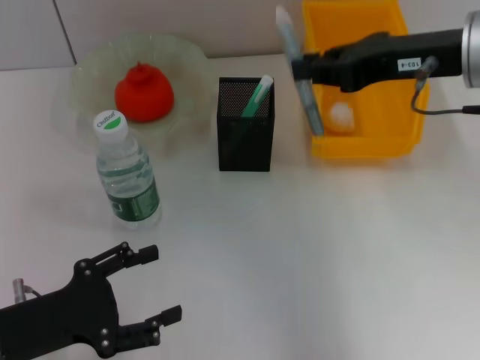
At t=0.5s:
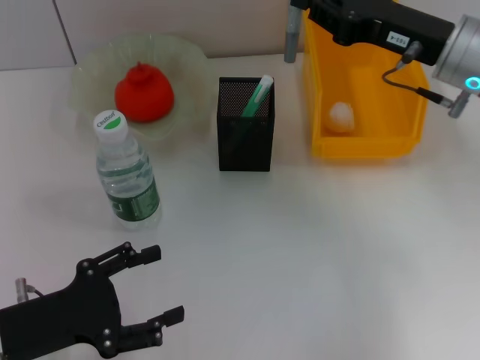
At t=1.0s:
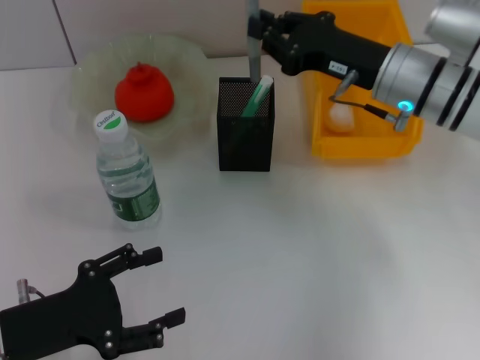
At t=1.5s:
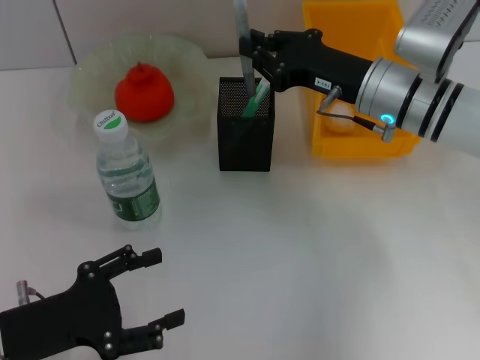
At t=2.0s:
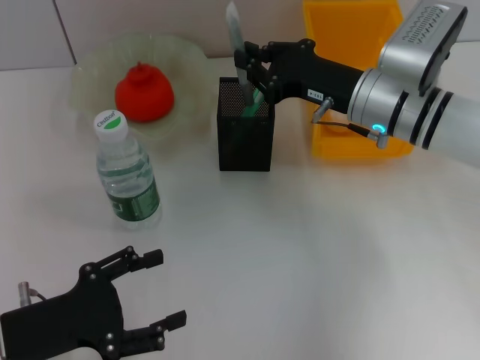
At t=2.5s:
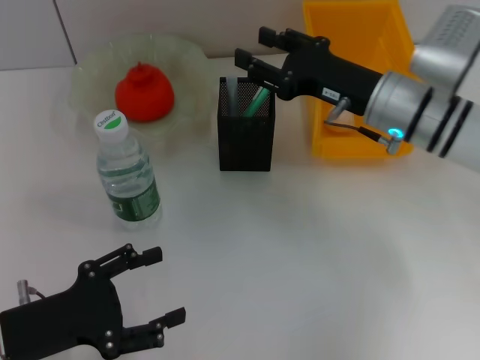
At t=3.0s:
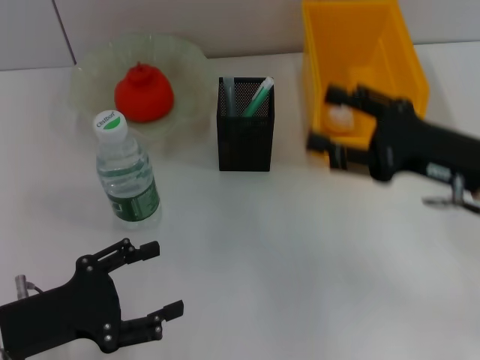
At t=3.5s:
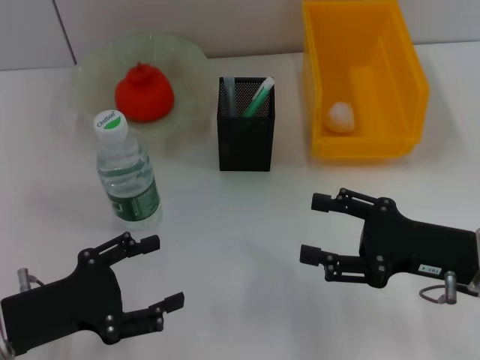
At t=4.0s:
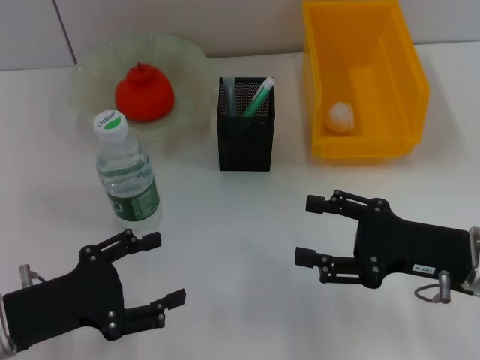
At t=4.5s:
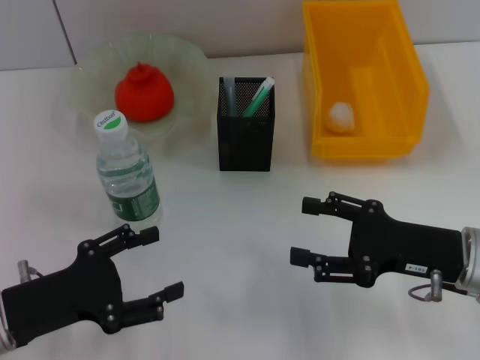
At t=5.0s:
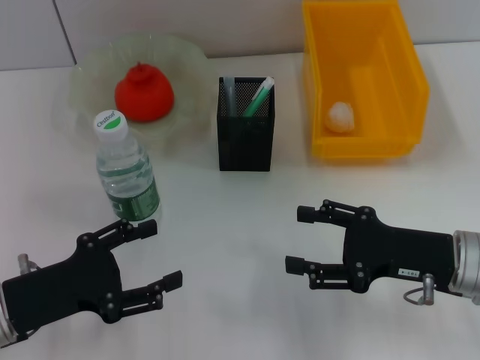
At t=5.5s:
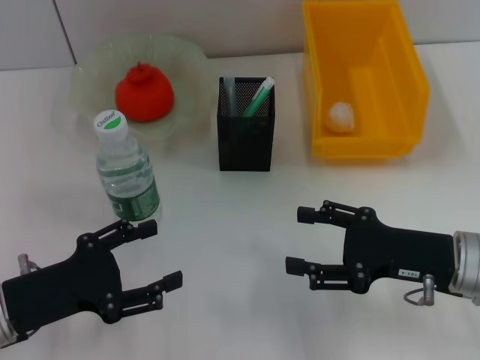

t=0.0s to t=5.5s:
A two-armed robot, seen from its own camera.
Step, t=0.0s to t=2.5s: Place the gray glue into the pen holder with the right hand.
t=0.0s to t=2.0s: The right gripper shifts approximately 15 cm downward and forward.
t=2.0s to t=3.5s: The right gripper is displaced backward and to the right by some 15 cm, and opens up.
t=3.5s to t=5.5s: The grippers make only small movements.

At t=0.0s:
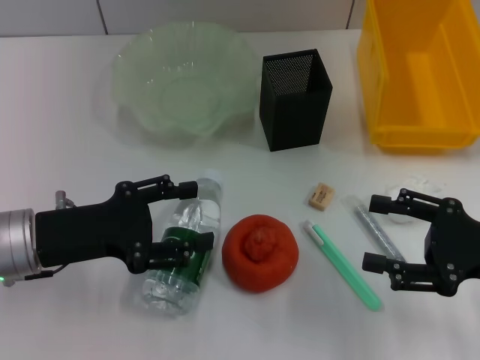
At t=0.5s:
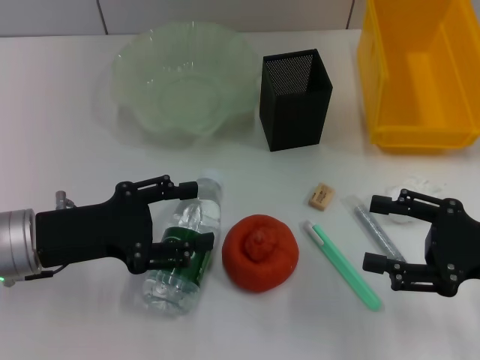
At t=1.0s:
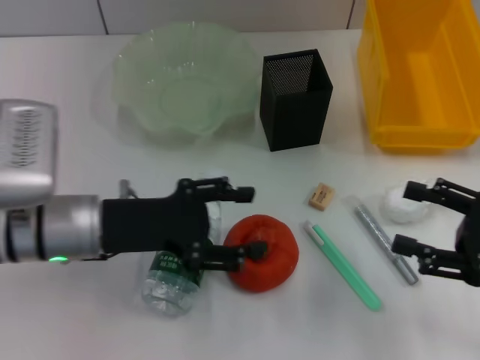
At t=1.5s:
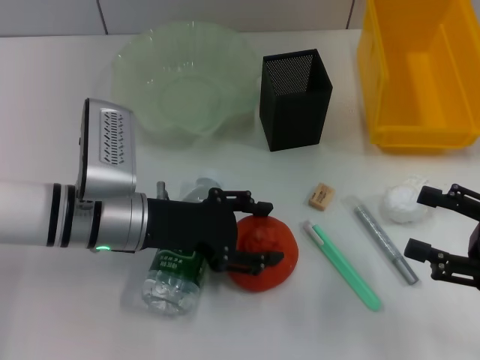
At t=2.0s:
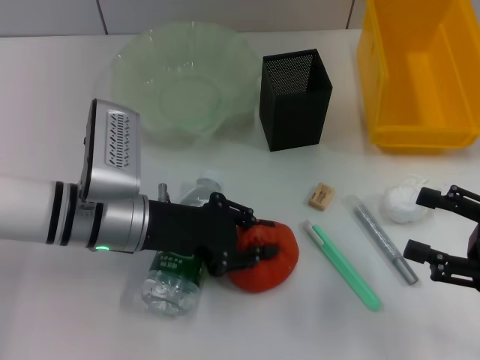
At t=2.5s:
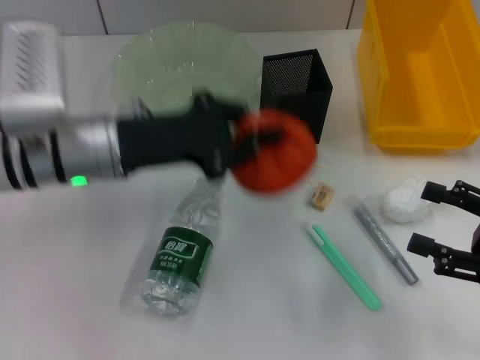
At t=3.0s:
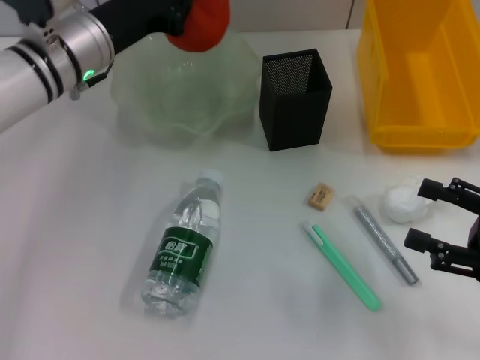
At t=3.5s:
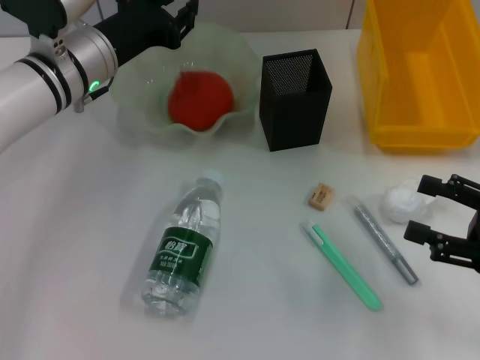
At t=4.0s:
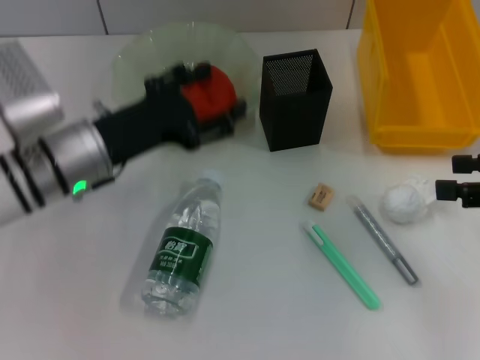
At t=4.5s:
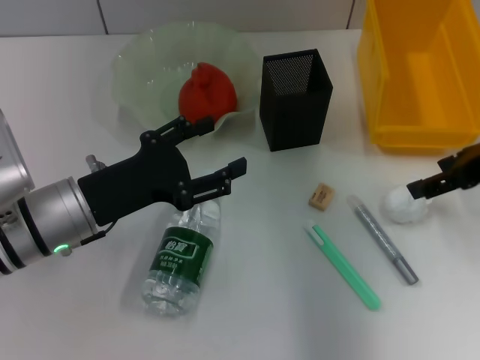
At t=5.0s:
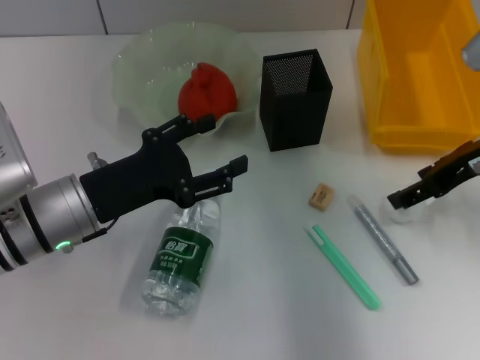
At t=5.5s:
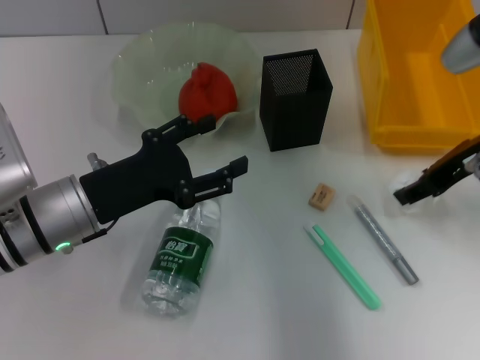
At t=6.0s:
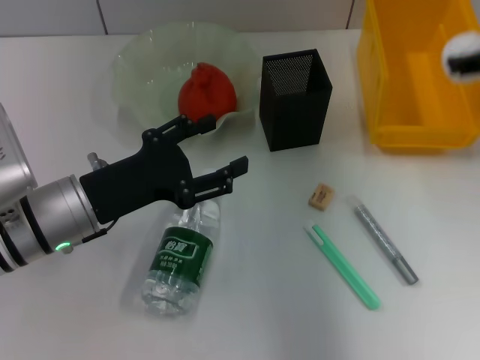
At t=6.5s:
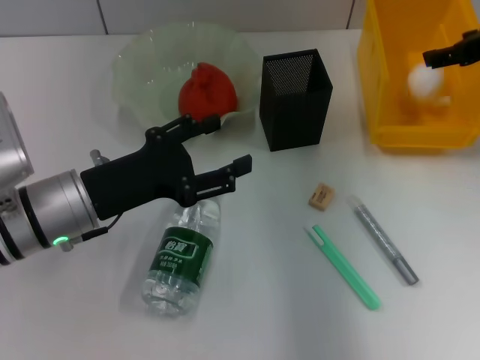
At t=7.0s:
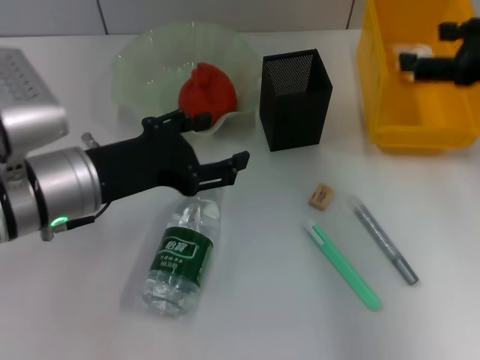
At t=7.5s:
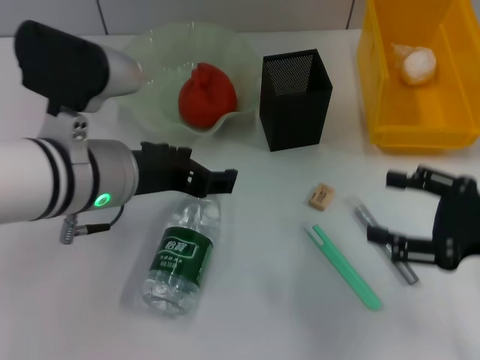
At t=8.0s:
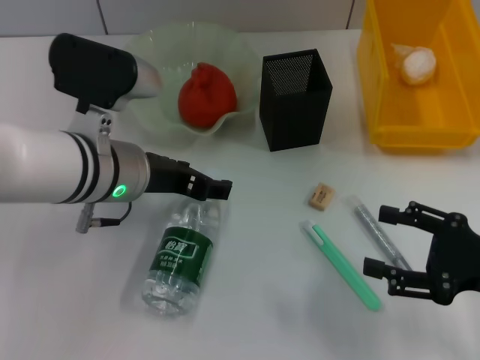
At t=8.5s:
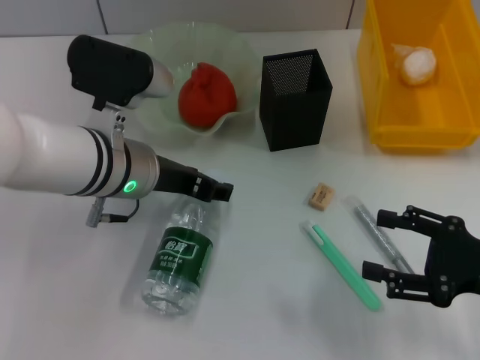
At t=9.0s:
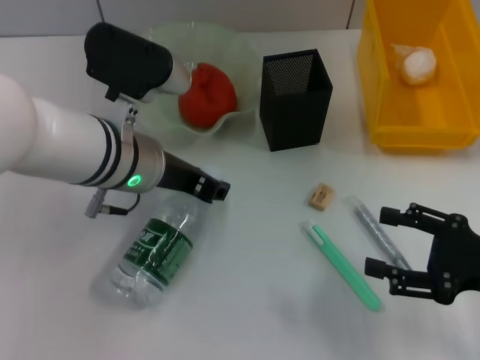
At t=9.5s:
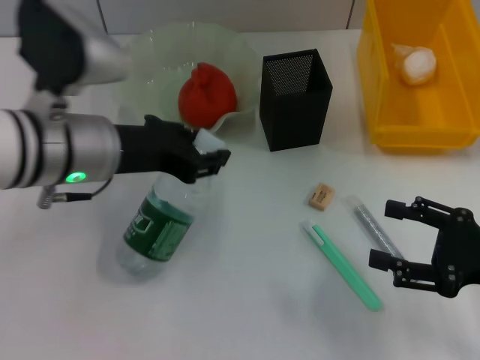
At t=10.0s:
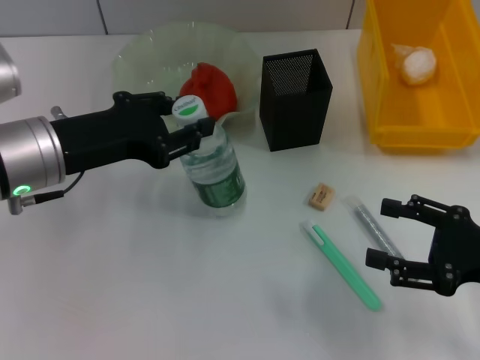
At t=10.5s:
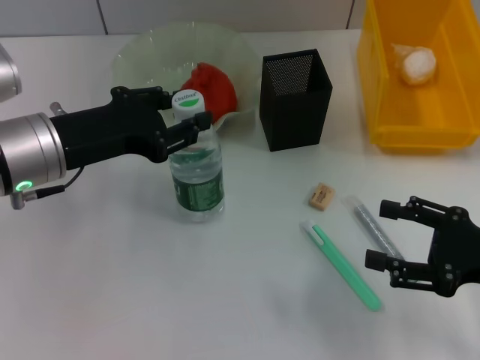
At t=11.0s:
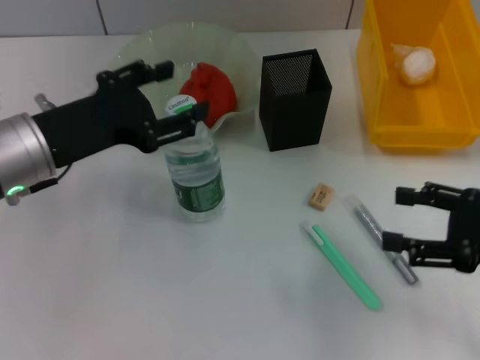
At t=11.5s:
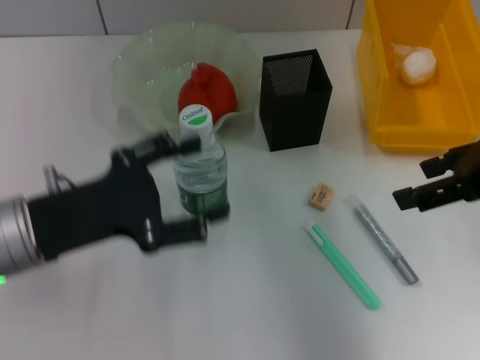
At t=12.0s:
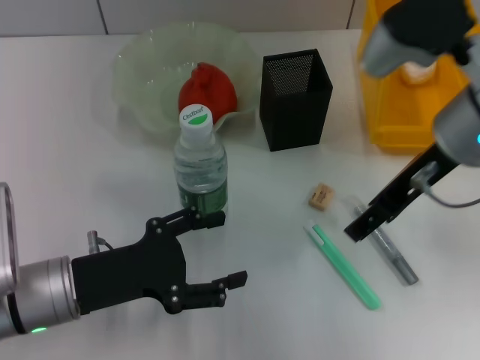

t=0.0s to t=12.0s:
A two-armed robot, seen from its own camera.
Step, t=0.0s to t=1.5s: Grab the orange with the left hand.
Step, t=2.5s to t=3.5s: Place the orange into the fruit bowl with the left hand.
Step, t=4.0s to t=5.0s: Grab the paper ball with the right hand.
Step, t=5.5s to t=6.5s: Place the paper ball into the trash can with the right hand.
Step, t=7.0s to t=9.0s: Grab the water bottle with the left hand.
Step, t=9.5s to t=11.0s: Place the water bottle on the table with the left hand.
t=0.0s to t=2.0s: The left gripper goes roughly 10 cm to the right, and closes its fingers.
t=2.0s to t=4.0s: The left gripper goes forward and returns, roughly 10 cm each way, and closes, then opens again; the right gripper travels upward and forward by about 10 cm.
t=4.0s to t=6.0s: The left gripper heads backward, covering about 5 cm, while the right gripper heads upward, forward and to the left, covering approximately 15 cm, and closes up.
t=6.0s to t=8.0s: The left gripper heads to the right and upward, covering approximately 10 cm. Meanwhile the right gripper shifts roughly 25 cm downward and backward, and opens its fingers.
t=8.0s to t=10.0s: The left gripper moves to the left, some 5 cm, and closes.
t=10.0s to t=12.0s: The left gripper goes roughly 10 cm downward and backward, and opens; the right gripper travels to the left, upward and forward by roughly 20 cm.

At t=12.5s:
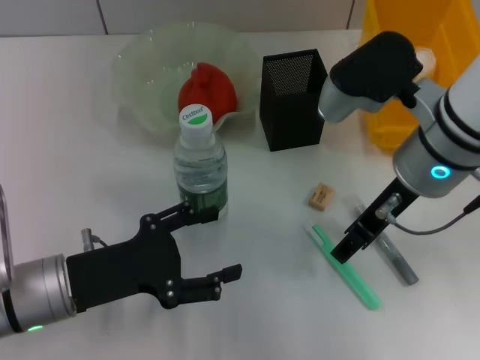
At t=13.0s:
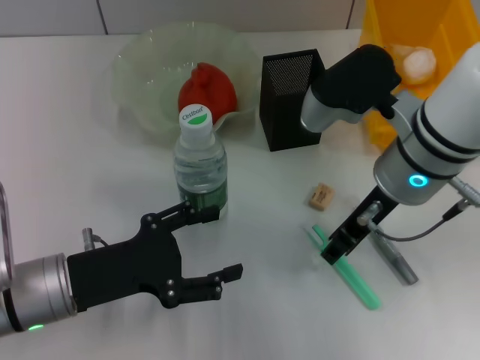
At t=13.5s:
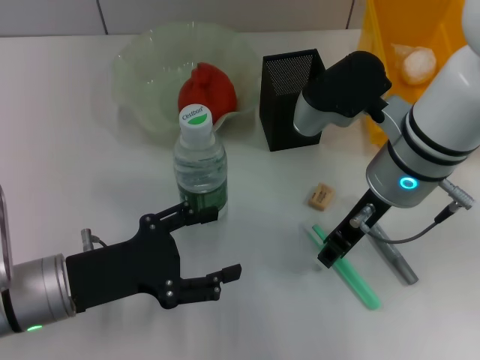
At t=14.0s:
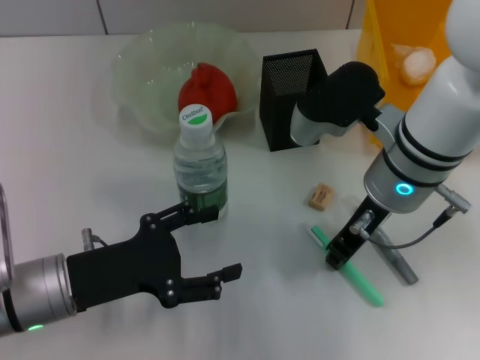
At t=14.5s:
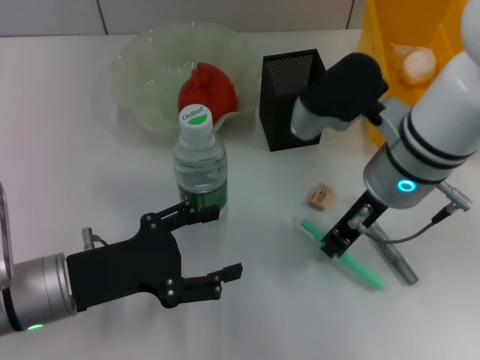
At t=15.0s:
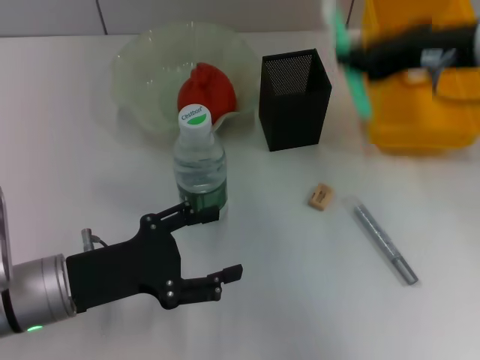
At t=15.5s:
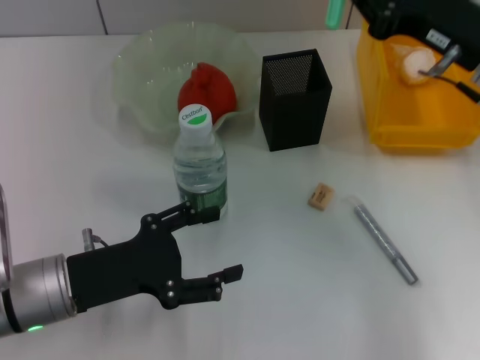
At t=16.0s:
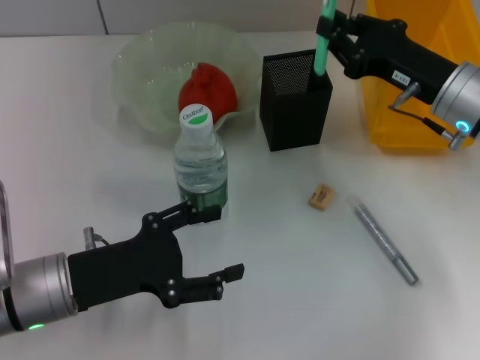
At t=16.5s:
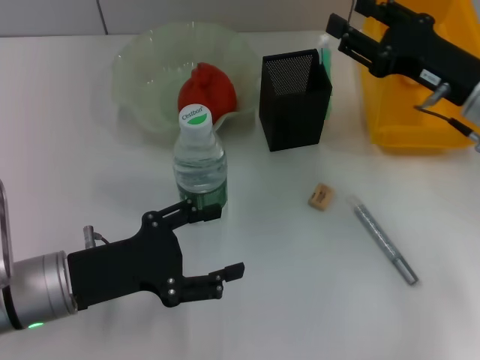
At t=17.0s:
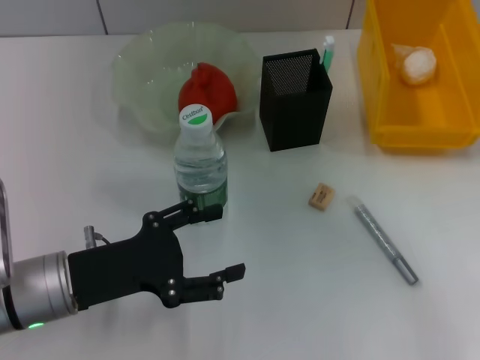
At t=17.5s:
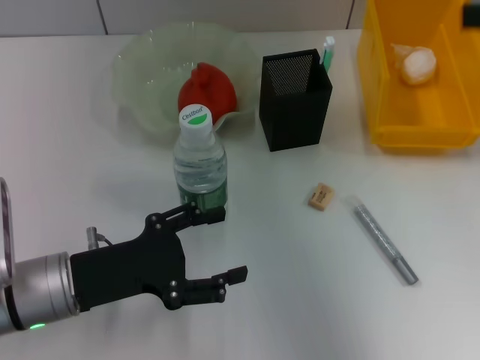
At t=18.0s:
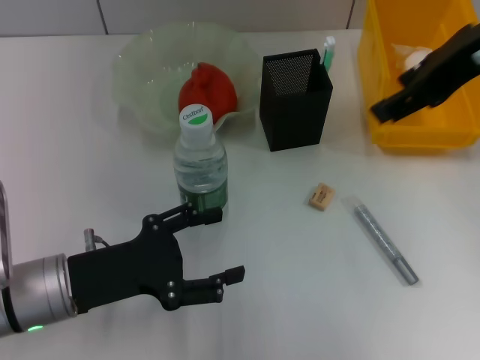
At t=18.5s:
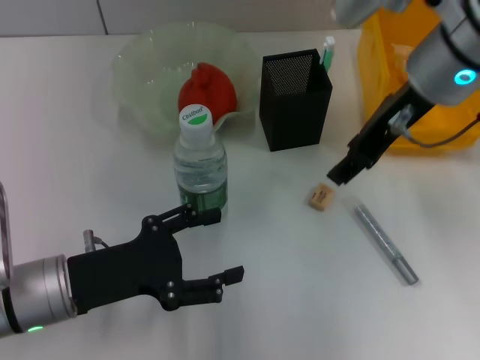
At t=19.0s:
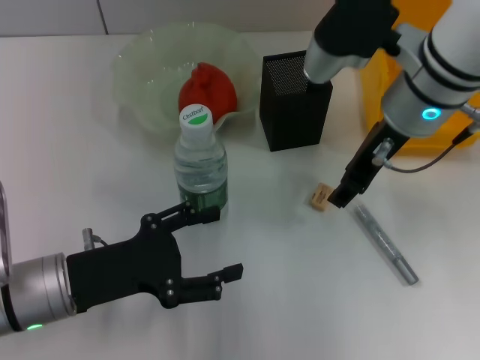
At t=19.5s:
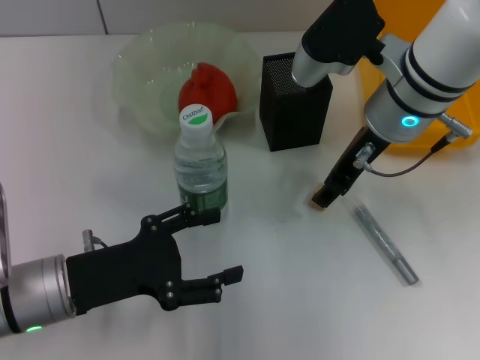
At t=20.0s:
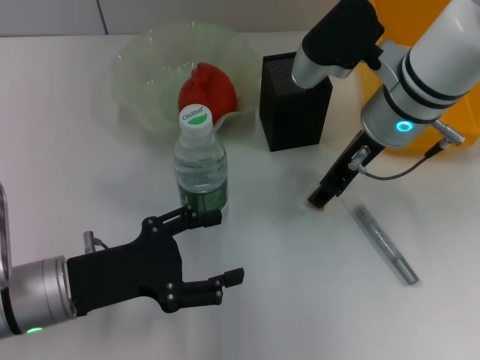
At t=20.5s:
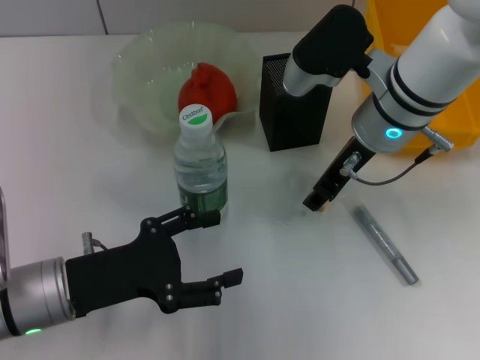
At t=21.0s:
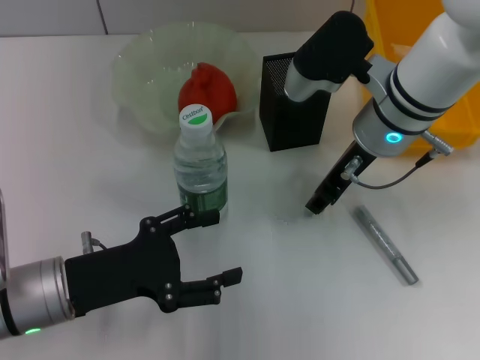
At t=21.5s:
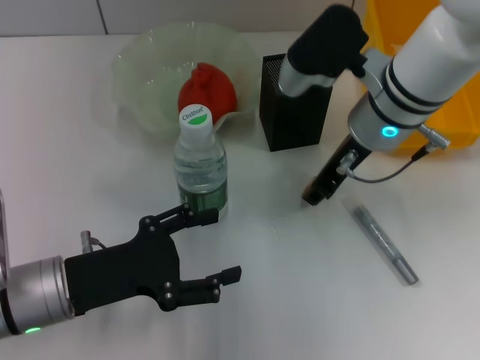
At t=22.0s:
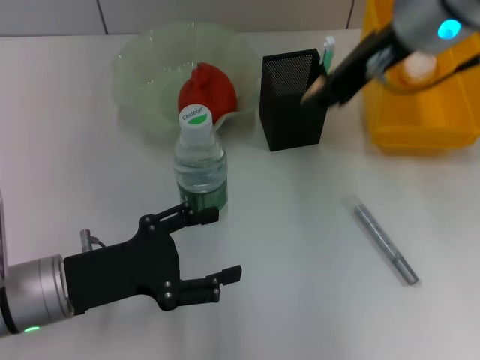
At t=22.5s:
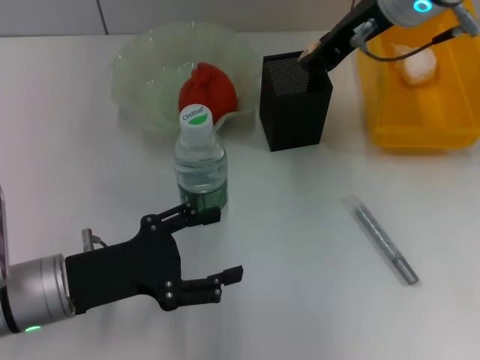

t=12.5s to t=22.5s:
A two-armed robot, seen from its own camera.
Step, t=12.5s to t=14.0s: Grab the blue utility knife with the right hand.
Step, t=14.5s to t=16.5s: Place the blue utility knife into the pen holder with the right hand.
Step, t=17.0s to t=21.0s: Grab the eraser with the right hand.
t=12.5s to t=14.5s: The right gripper closes its fingers.
t=14.5s to t=16.5s: The right gripper is displaced to the right by approximately 10 cm, and travels upward and back again, some 10 cm each way.
t=16.5s to t=18.5s: The right gripper moves upward and to the left, approximately 15 cm.
t=18.5s to t=20.5s: The right gripper heads downward, covering roughly 10 cm.
t=20.5s to t=22.5s: The right gripper travels upward by roughly 10 cm.
